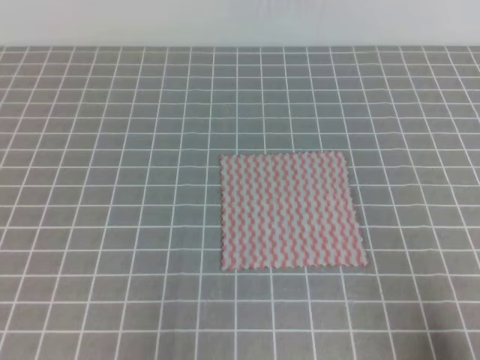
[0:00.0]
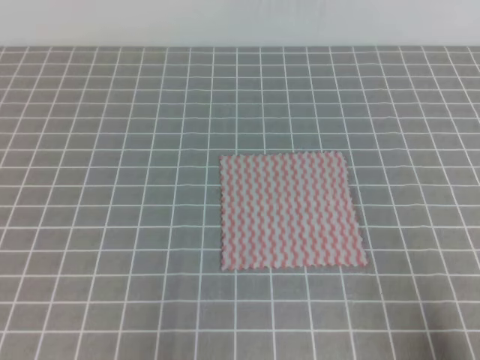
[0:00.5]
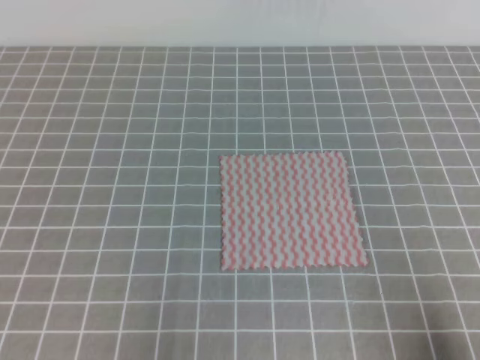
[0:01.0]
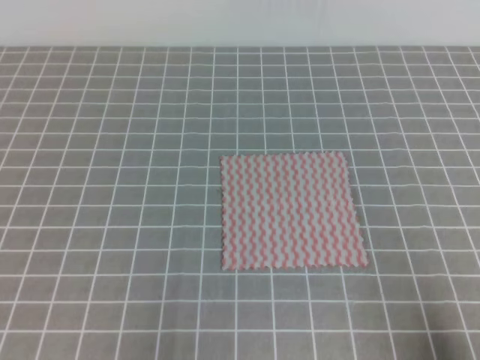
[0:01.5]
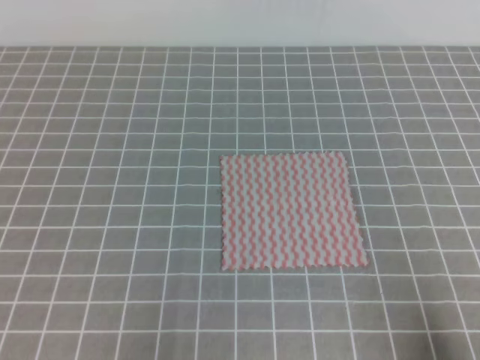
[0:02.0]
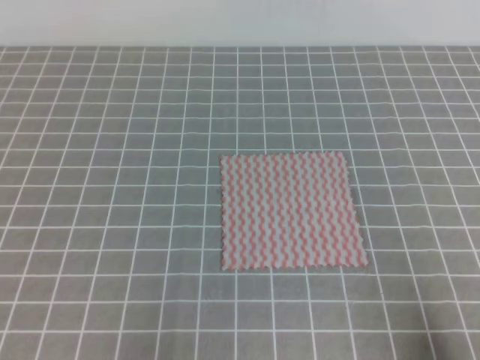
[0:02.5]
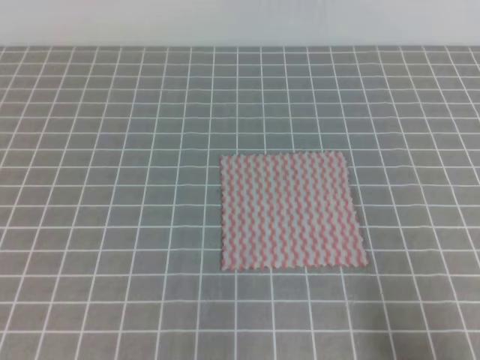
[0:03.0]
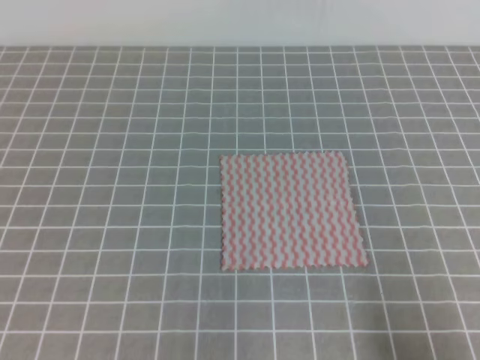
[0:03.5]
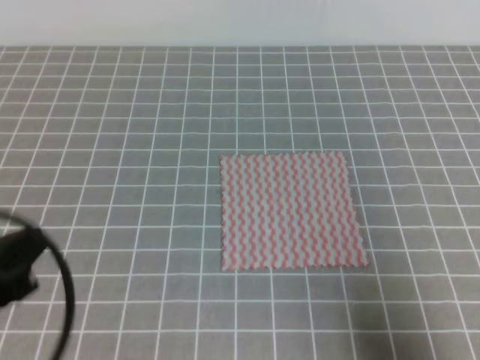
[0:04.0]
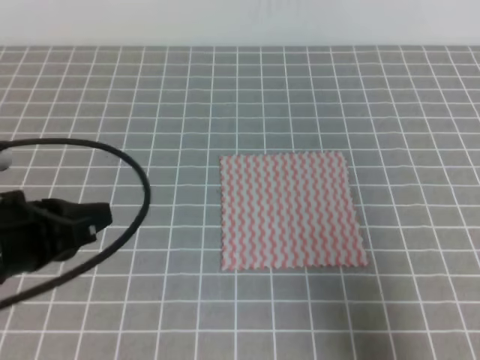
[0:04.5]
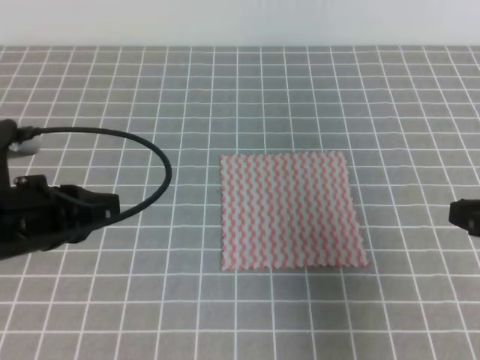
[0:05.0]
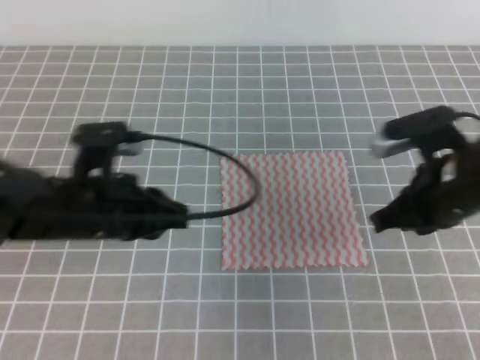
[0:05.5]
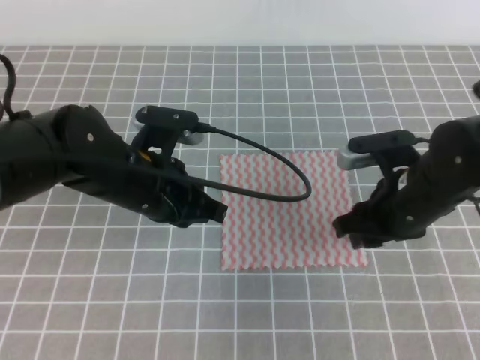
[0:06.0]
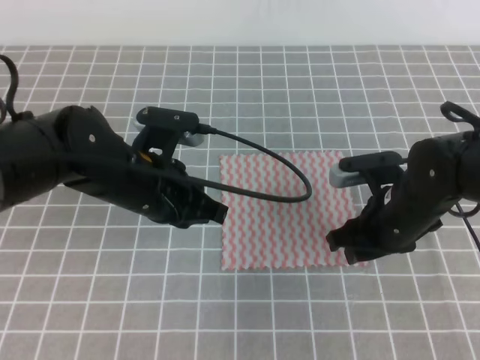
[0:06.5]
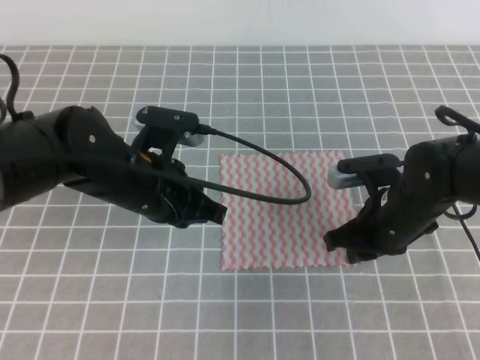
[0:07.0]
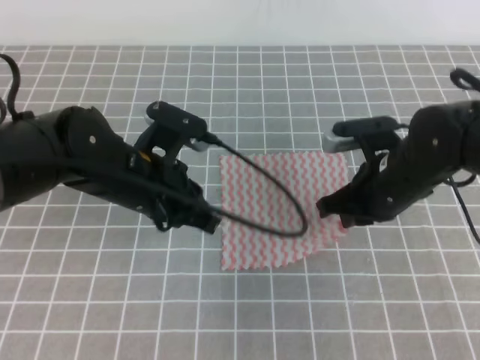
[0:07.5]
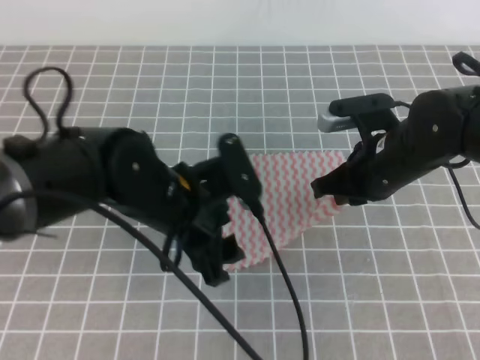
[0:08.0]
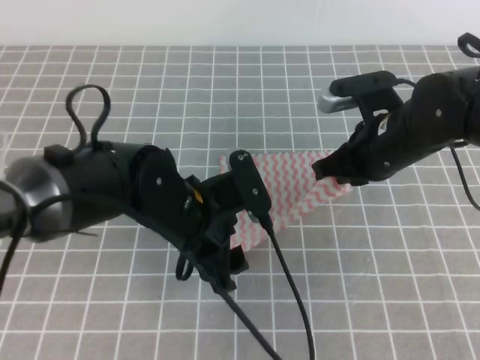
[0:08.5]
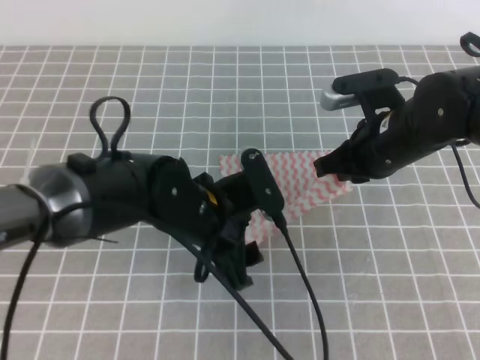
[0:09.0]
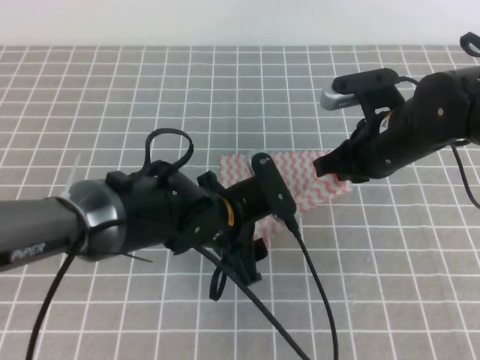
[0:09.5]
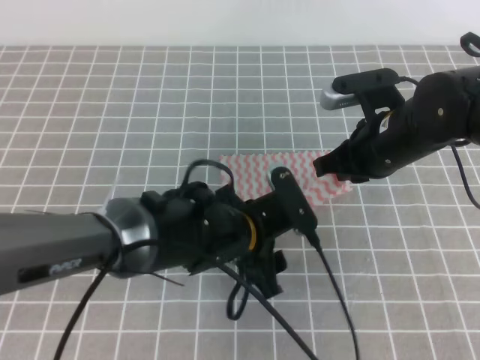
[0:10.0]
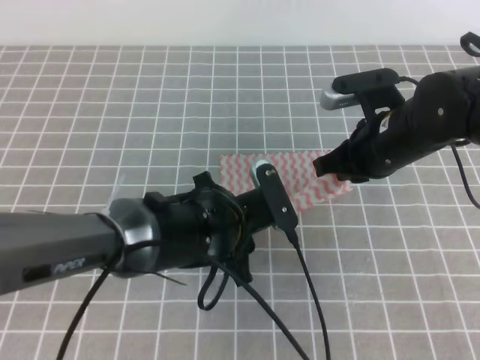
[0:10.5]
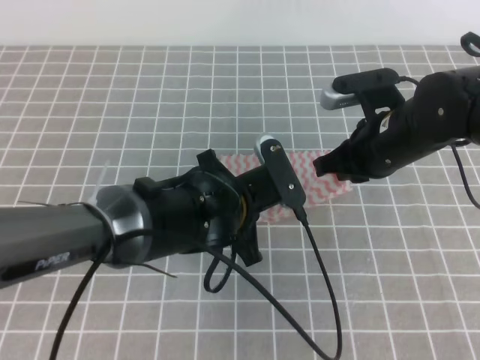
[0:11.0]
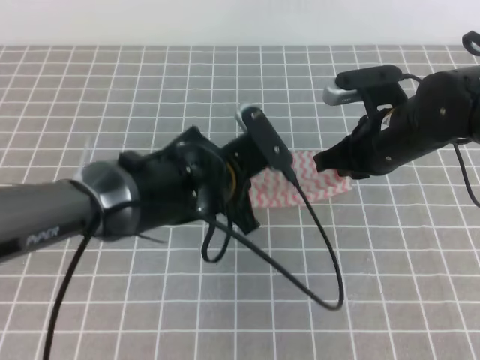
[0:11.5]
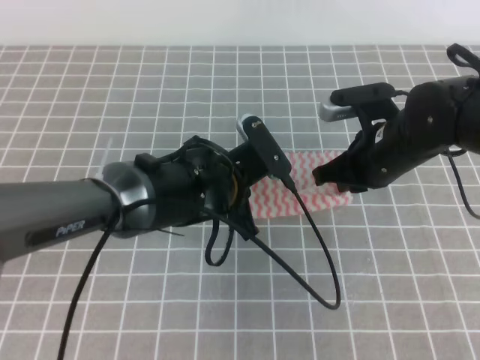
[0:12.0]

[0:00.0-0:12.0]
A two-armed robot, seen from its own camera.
Step, 0:00.0 to 0:10.0: Fold the towel upwards with the both gripper.
Step, 0:11.0 to 0:11.5: Tidy up the towels.
0:00.0 to 0:02.0: Both grippers stay put.
0:02.0 to 0:04.0: The left gripper shifts about 10 cm upward and forward.
0:04.0 to 0:06.0: The left gripper goes approximately 20 cm forward and to the right. The right gripper shifts some 25 cm forward and to the left, and opens.
0:06.0 to 0:08.0: The left gripper opens. The right gripper closes its fingers.
0:08.0 to 0:10.0: The left gripper travels to the right and downward by about 10 cm.
0:10.0 to 0:12.0: The left gripper goes roughly 5 cm forward, and closes its fingers.

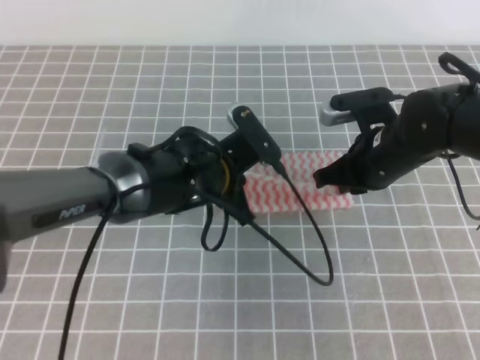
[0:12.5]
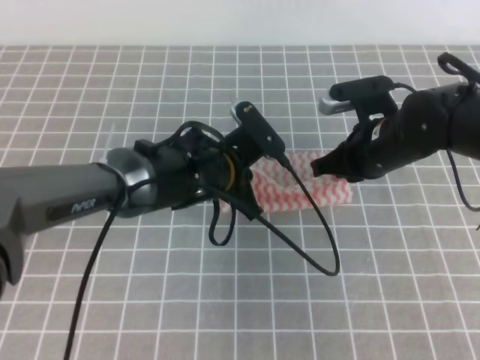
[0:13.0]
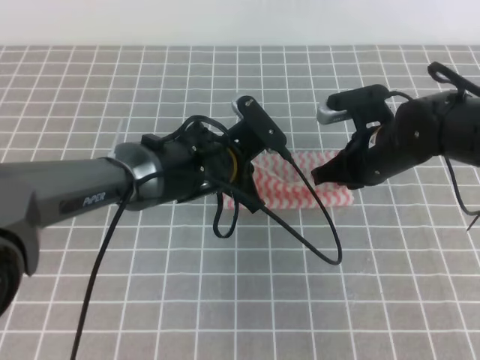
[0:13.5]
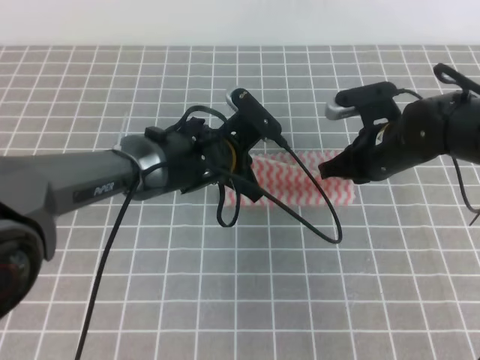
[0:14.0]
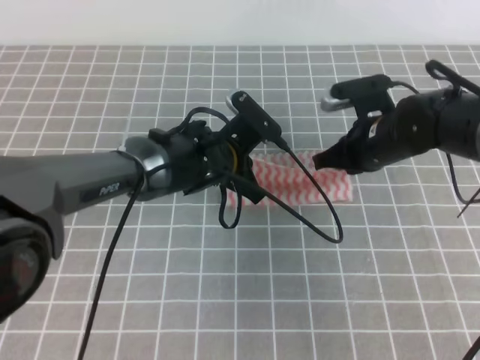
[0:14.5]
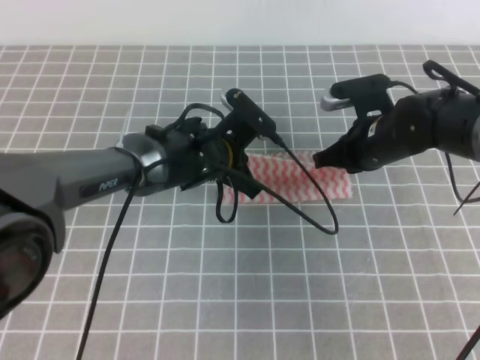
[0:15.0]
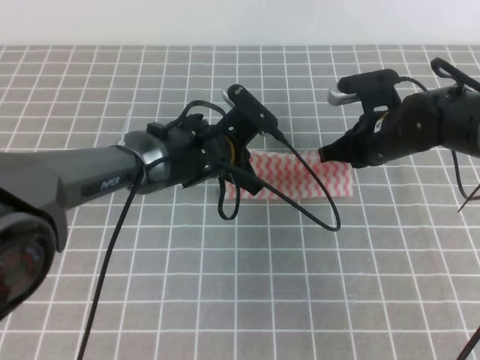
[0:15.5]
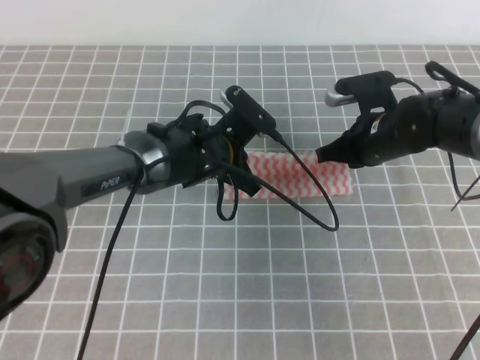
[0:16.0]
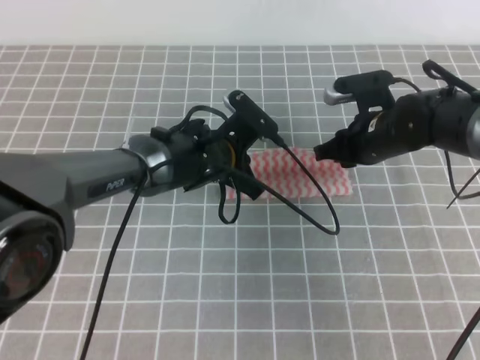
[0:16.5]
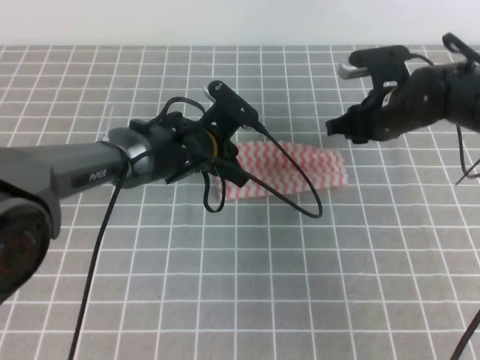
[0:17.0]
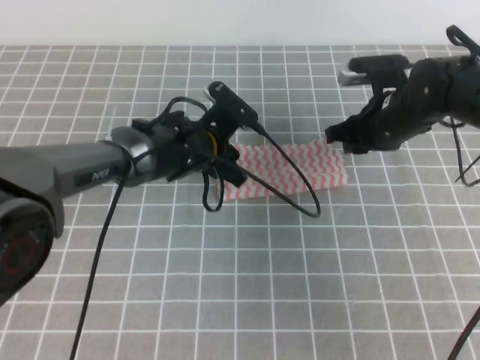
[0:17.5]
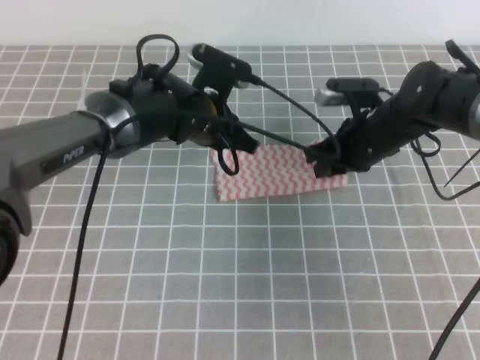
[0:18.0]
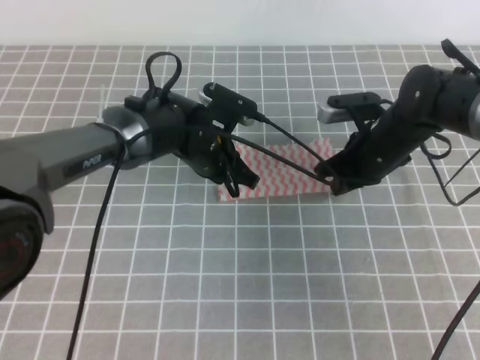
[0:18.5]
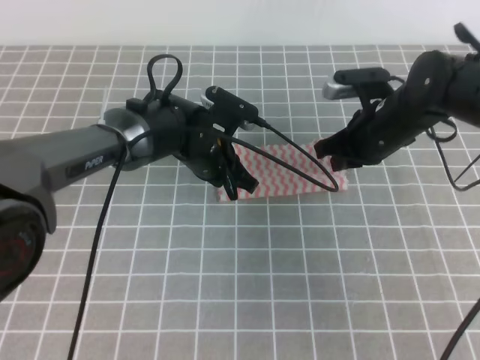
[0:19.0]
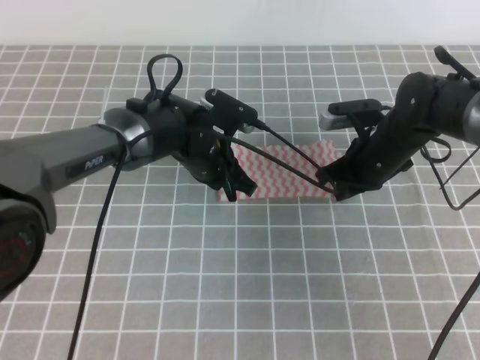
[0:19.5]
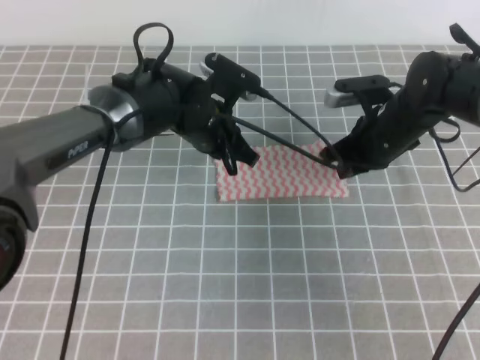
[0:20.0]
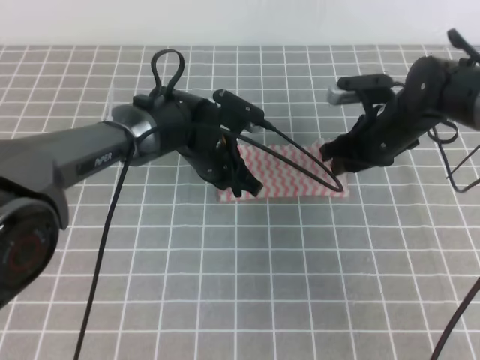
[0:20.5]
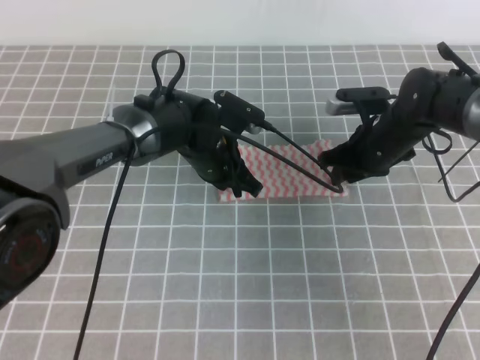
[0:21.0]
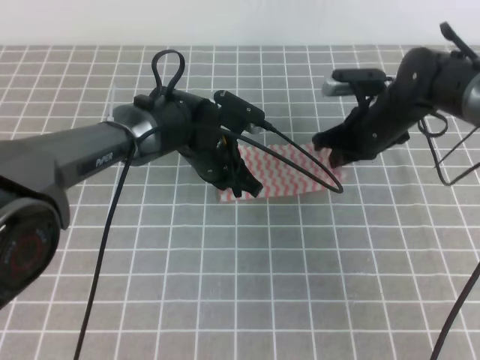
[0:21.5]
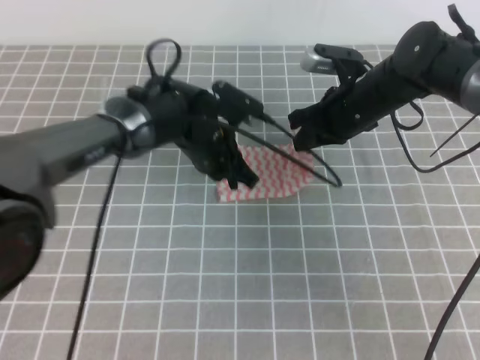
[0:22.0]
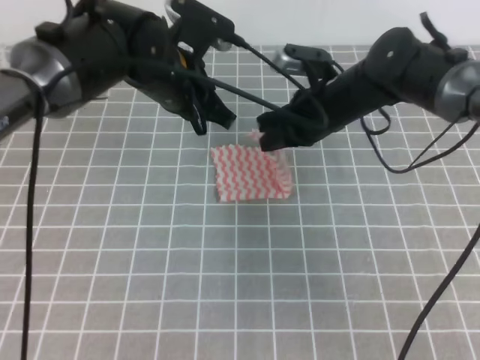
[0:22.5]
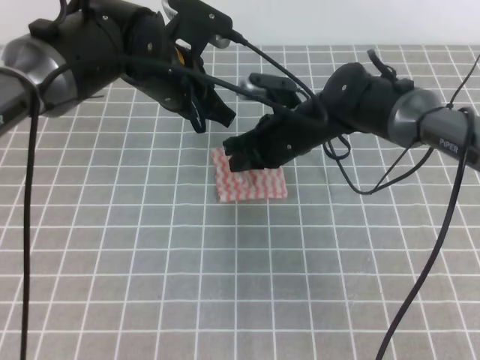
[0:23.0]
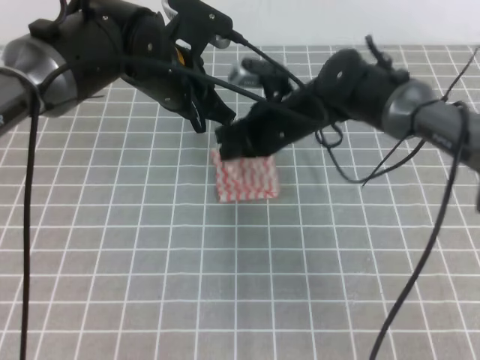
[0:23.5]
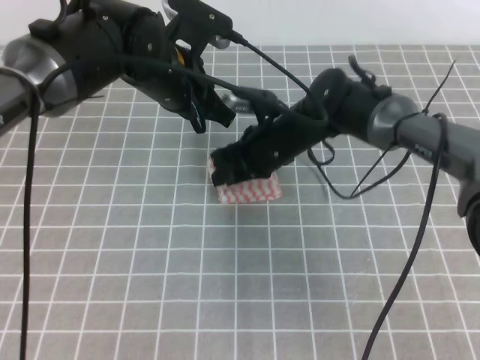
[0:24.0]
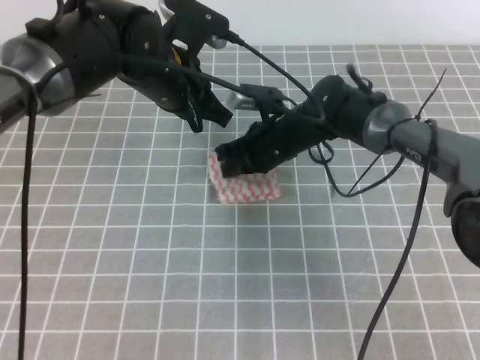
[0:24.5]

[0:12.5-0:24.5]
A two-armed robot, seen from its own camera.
Step, 0:12.5 to 0:14.5: Fold the towel from right to left with the right gripper.
Step, 0:15.0 to 0:15.5: Tidy up the towels.
0:12.5 to 0:14.5: The grippers move only a little.
0:14.5 to 0:16.5: The right gripper opens up.
0:16.5 to 0:18.5: The left gripper opens and closes again; the right gripper closes up.
0:18.5 to 0:20.5: The right gripper opens.
0:20.5 to 0:22.5: The left gripper is displaced upward by about 10 cm. Meanwhile the right gripper travels to the left by approximately 5 cm, and closes its fingers.
0:22.5 to 0:24.5: The right gripper moves to the left, about 5 cm, and opens and closes again.

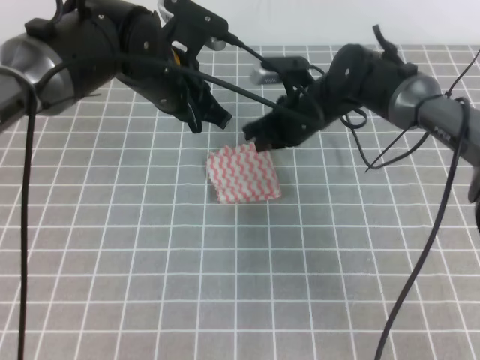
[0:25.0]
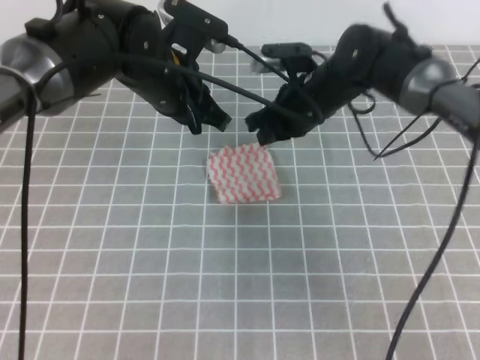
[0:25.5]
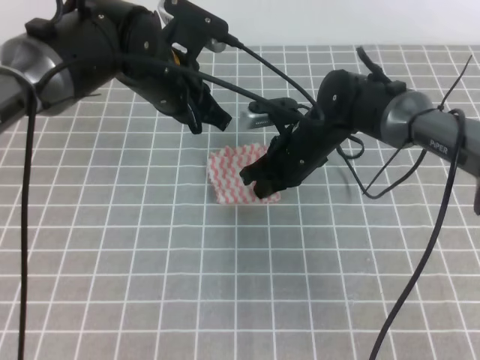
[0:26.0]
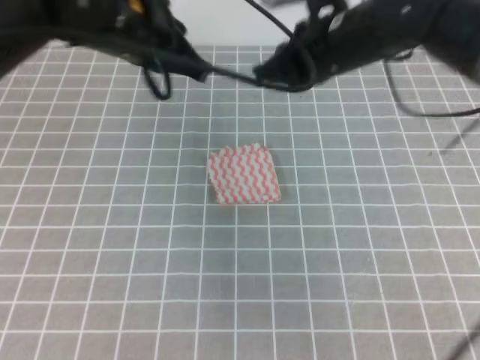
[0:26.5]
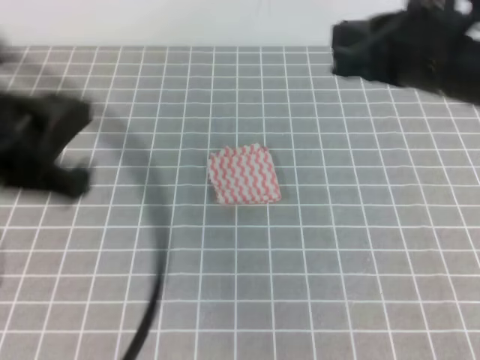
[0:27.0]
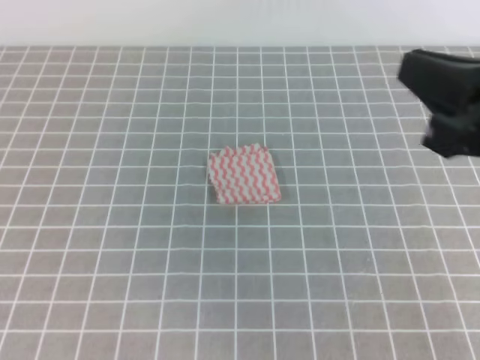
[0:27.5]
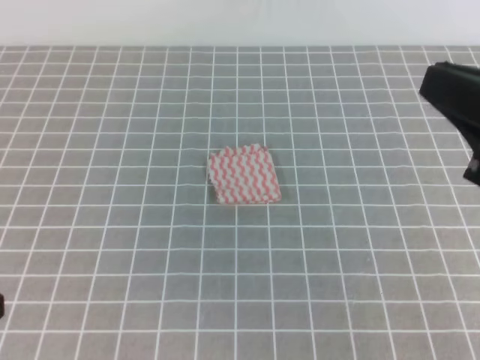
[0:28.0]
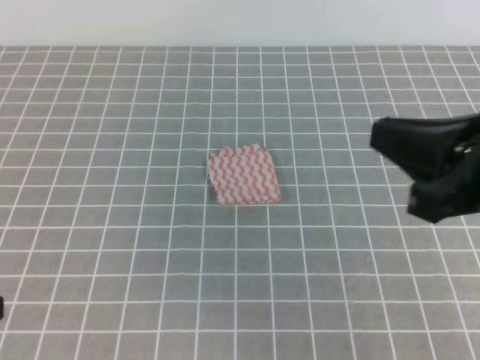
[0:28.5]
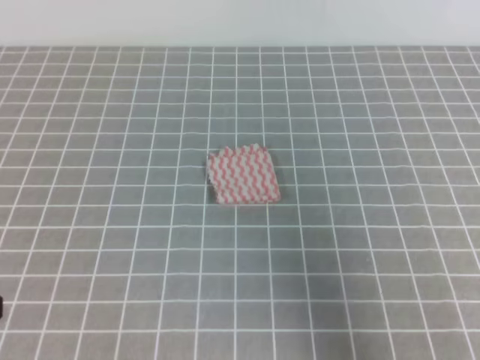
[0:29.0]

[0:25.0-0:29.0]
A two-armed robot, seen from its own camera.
0:25.0 to 0:27.0: The left gripper heads backward, to the left and upward, covering about 25 cm. The right gripper is displaced upward, backward and to the right by some 30 cm.
0:27.0 to 0:29.0: The left gripper shifts approximately 15 cm backward, downward and to the left. Meanwhile the right gripper moves backward, to the right and downward, roughly 20 cm.
